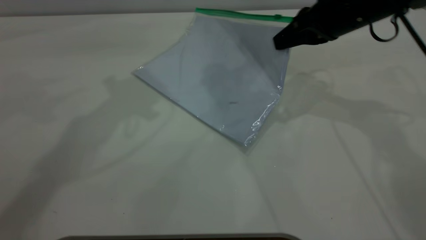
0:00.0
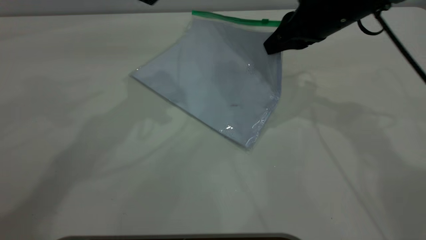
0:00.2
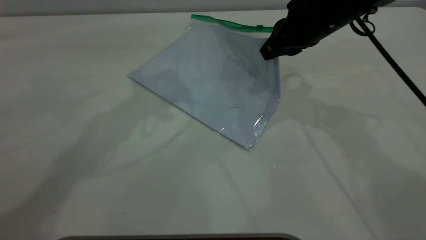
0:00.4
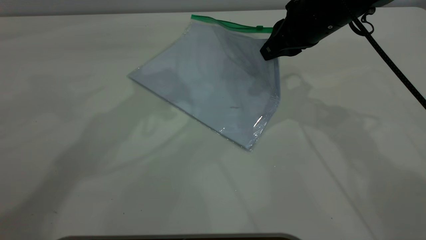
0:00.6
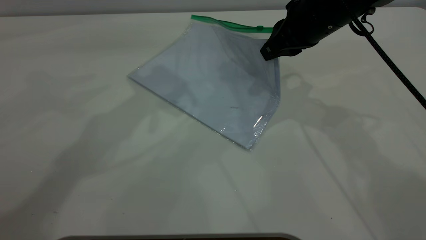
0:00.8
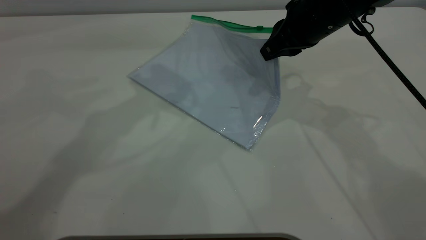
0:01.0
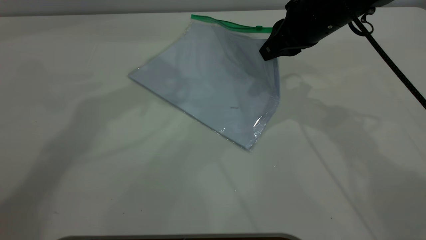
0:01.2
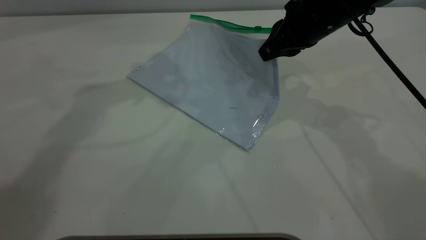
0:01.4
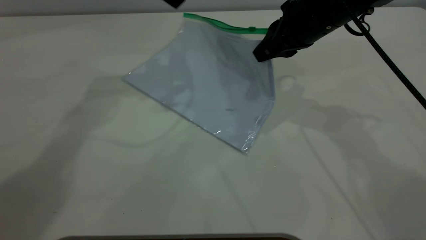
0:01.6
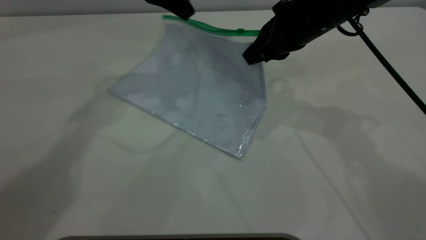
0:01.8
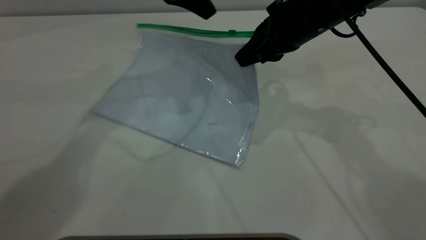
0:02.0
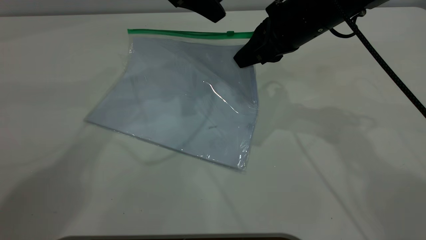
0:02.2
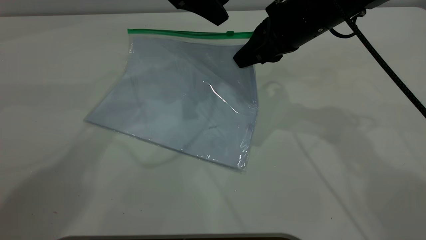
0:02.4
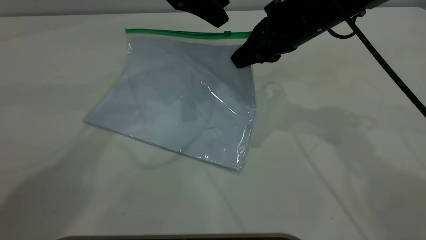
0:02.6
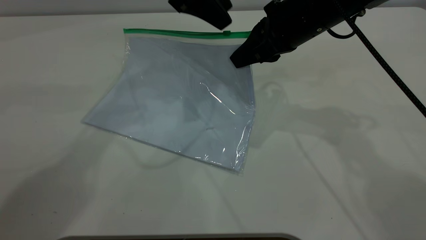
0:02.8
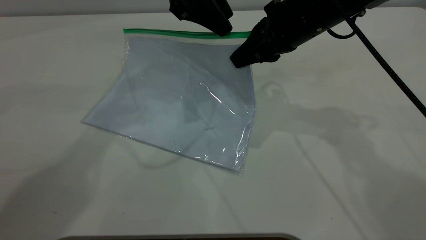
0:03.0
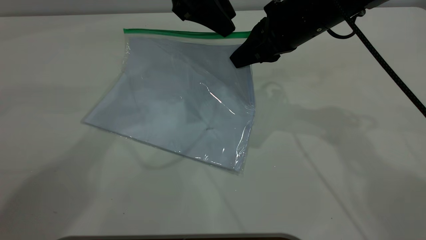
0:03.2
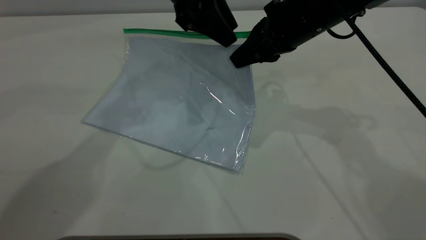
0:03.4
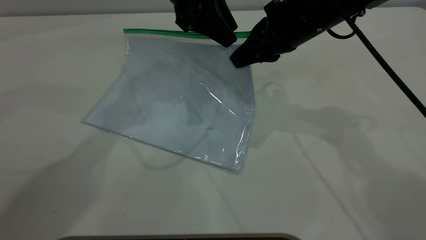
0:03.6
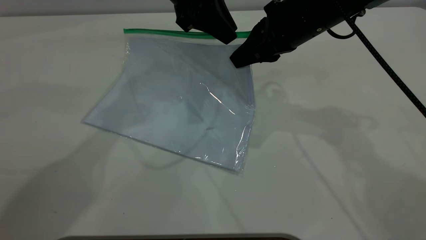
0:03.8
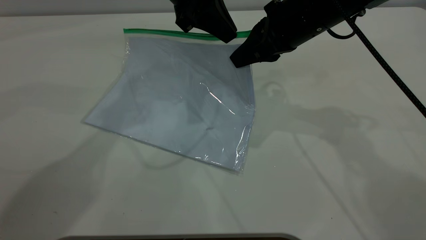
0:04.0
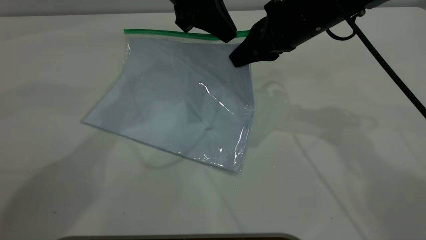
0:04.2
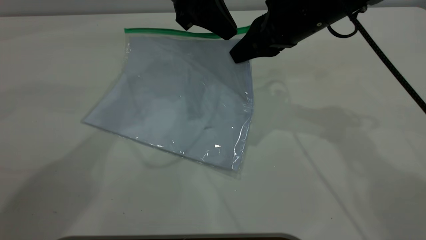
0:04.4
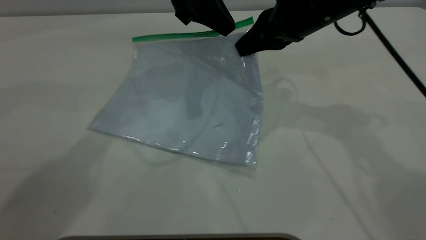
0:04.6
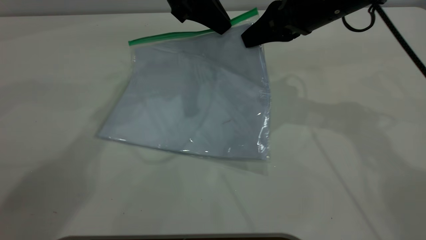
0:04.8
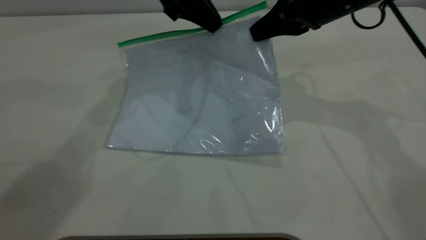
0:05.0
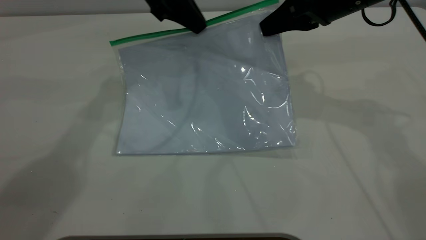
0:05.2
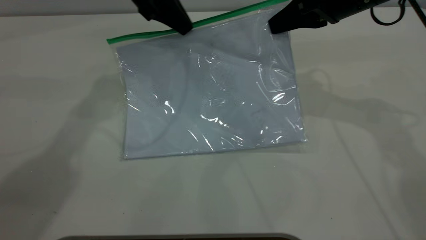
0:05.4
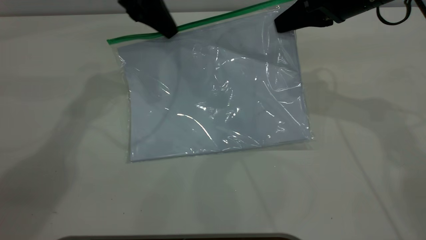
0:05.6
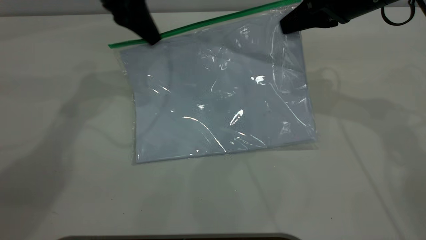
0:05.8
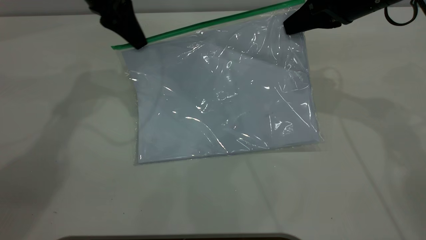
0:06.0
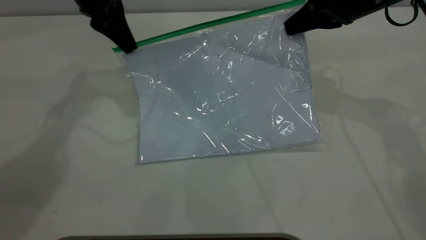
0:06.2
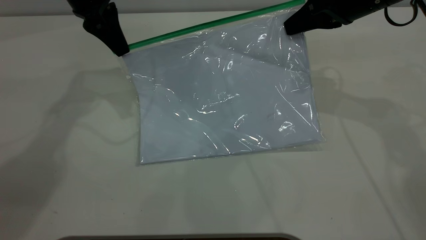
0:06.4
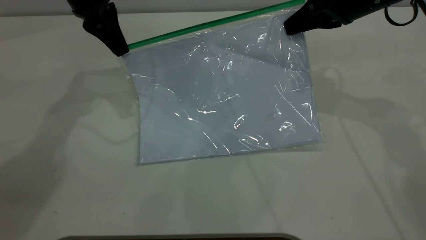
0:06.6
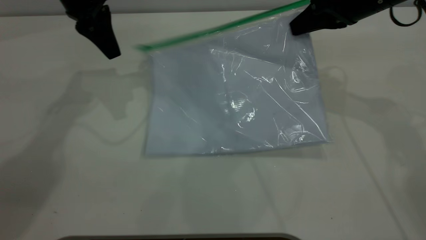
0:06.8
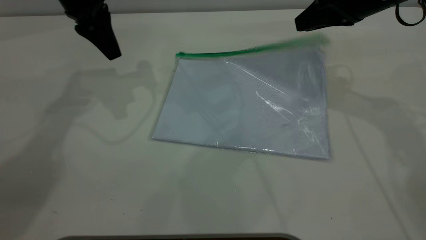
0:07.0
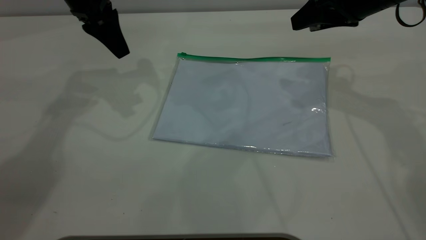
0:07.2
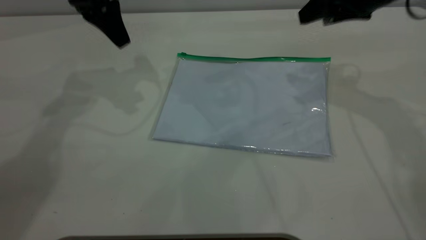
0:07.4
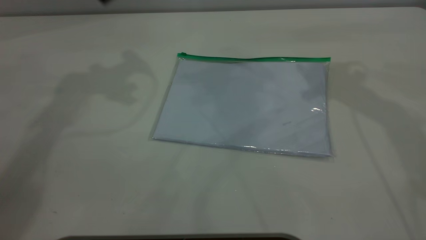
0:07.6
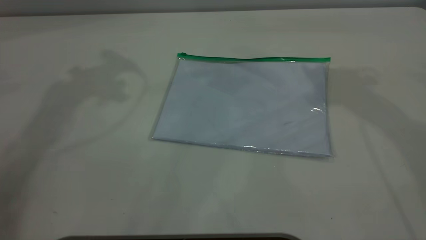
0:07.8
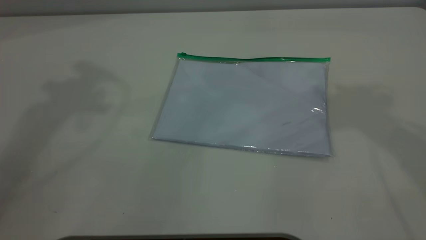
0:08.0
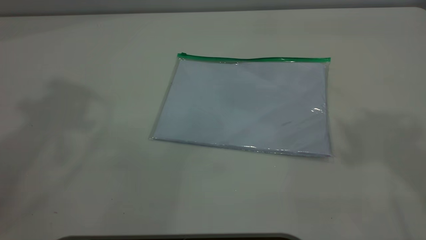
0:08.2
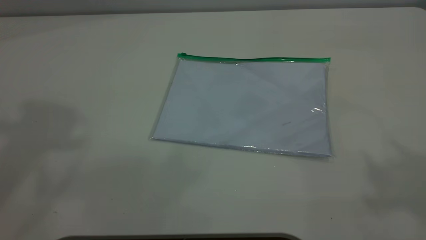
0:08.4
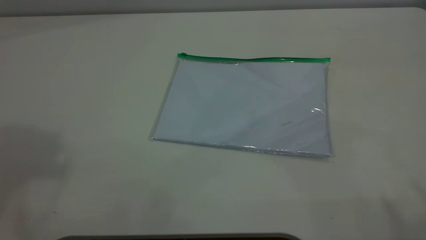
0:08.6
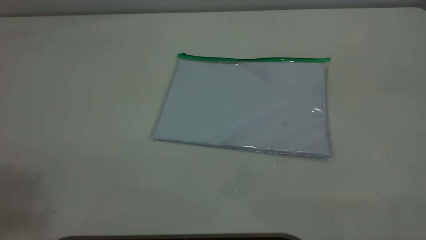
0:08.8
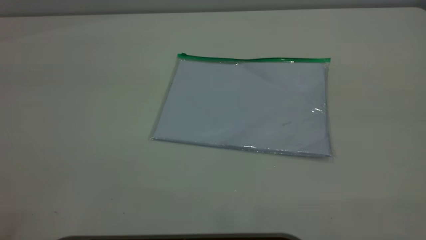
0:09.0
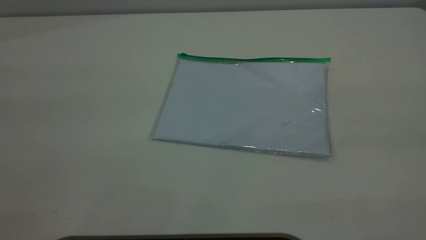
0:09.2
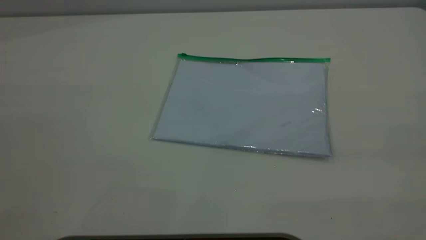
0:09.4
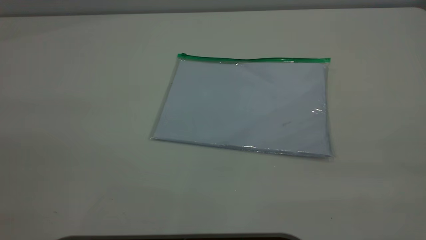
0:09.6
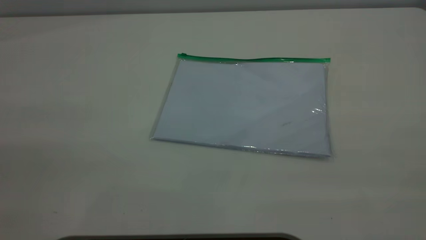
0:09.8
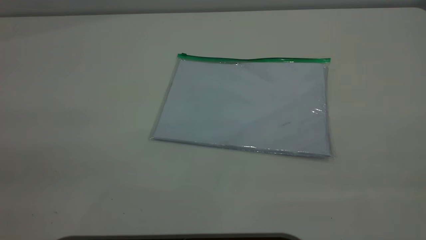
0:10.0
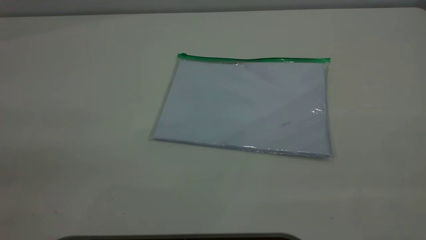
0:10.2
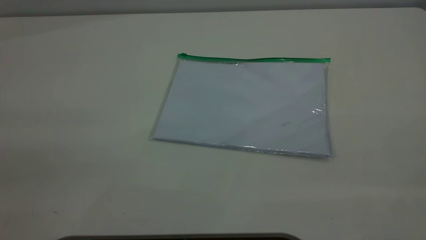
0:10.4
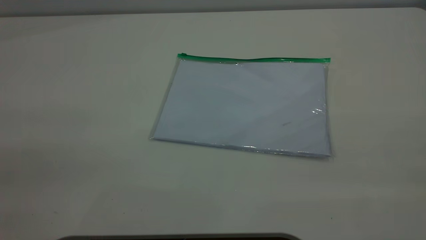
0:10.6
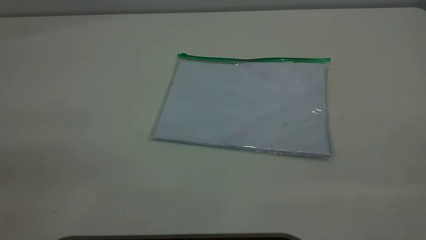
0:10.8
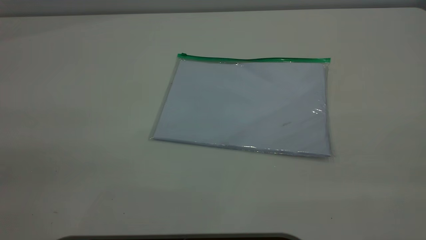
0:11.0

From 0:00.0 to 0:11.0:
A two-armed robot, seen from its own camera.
Step, from 0:00.0 to 0:06.6: Pulling up the zipper on the transparent plastic bag with the left gripper to close it.
From 0:00.0 to 0:01.6: The left gripper heads forward, covering roughly 5 cm.
From 0:01.6 to 0:03.2: The left gripper goes roughly 5 cm to the right.
From 0:03.2 to 0:04.8: The left gripper closes.
From 0:04.8 to 0:06.2: The left gripper moves to the left, roughly 10 cm. The right gripper heads to the right, covering roughly 5 cm.
From 0:06.2 to 0:07.8: Both grippers travel together upward, some 20 cm. The right gripper opens up, while the left gripper opens up.
